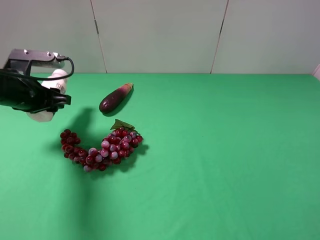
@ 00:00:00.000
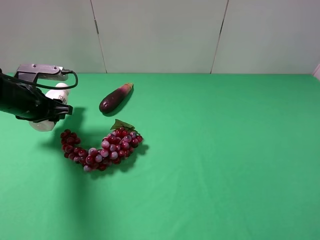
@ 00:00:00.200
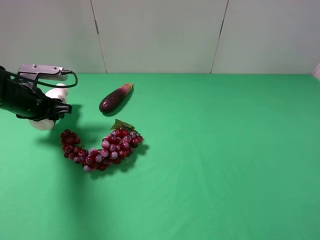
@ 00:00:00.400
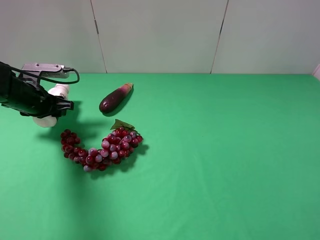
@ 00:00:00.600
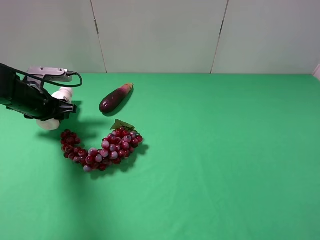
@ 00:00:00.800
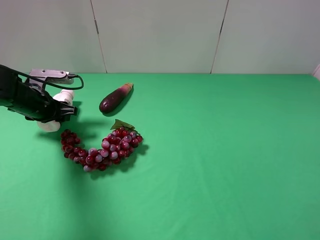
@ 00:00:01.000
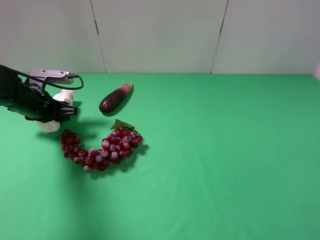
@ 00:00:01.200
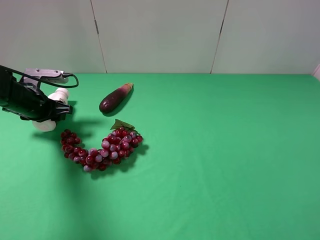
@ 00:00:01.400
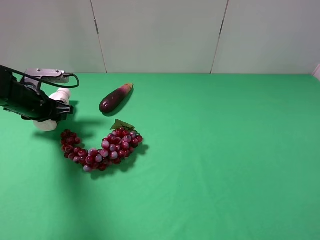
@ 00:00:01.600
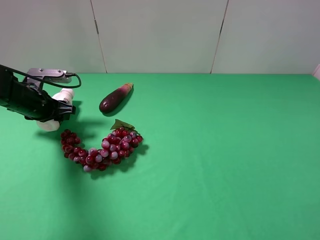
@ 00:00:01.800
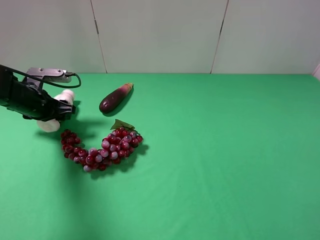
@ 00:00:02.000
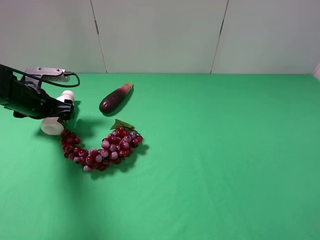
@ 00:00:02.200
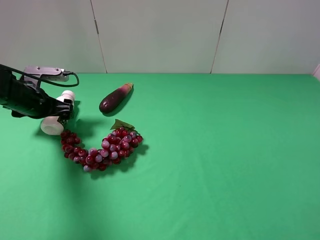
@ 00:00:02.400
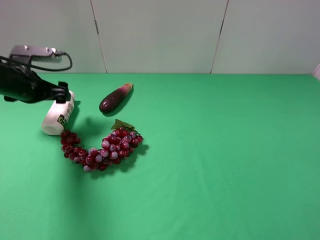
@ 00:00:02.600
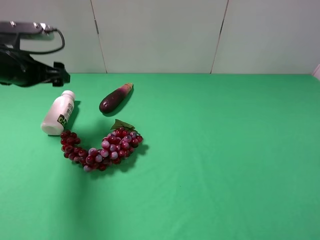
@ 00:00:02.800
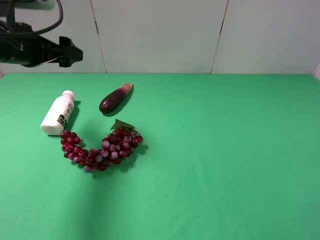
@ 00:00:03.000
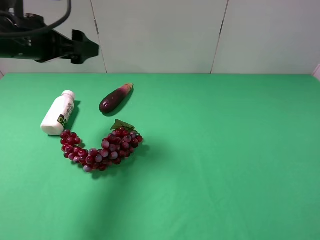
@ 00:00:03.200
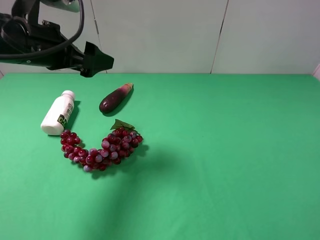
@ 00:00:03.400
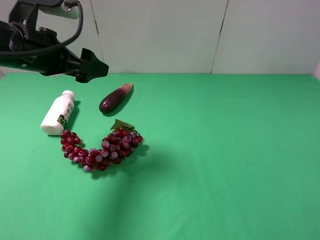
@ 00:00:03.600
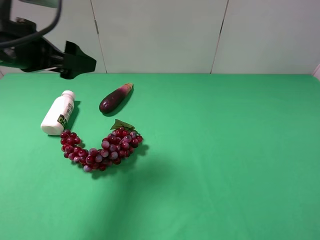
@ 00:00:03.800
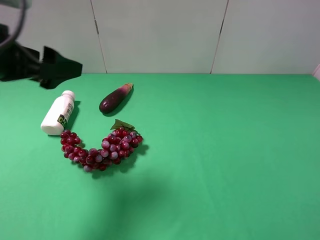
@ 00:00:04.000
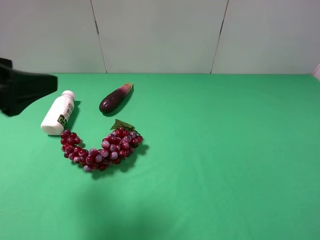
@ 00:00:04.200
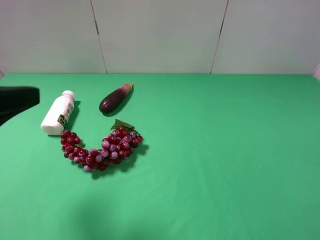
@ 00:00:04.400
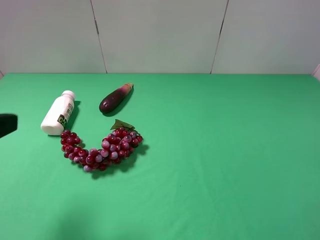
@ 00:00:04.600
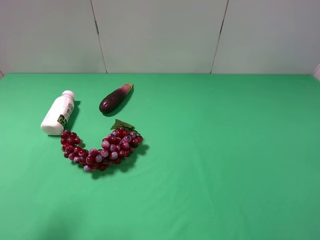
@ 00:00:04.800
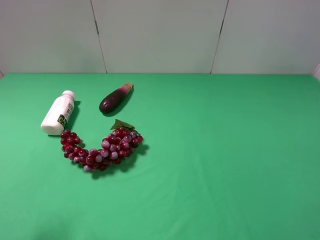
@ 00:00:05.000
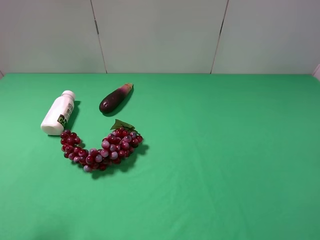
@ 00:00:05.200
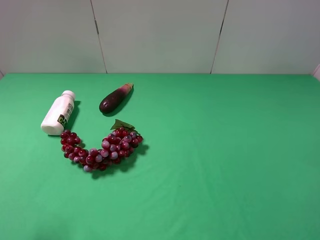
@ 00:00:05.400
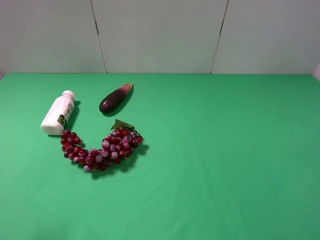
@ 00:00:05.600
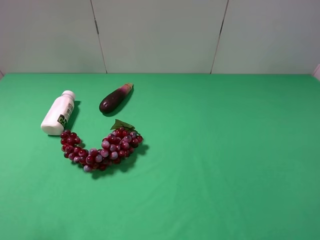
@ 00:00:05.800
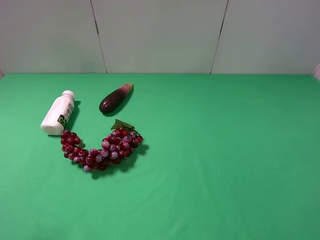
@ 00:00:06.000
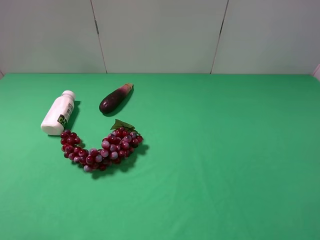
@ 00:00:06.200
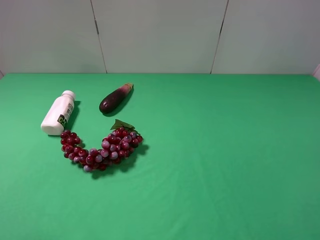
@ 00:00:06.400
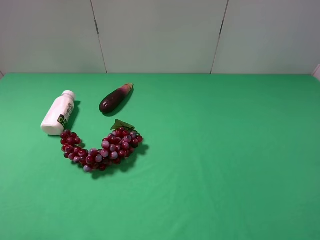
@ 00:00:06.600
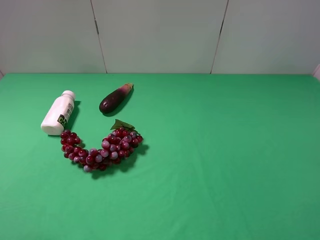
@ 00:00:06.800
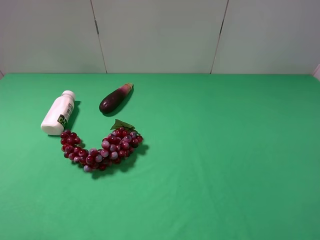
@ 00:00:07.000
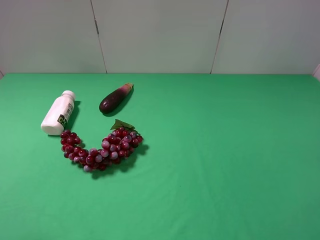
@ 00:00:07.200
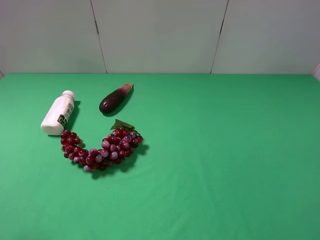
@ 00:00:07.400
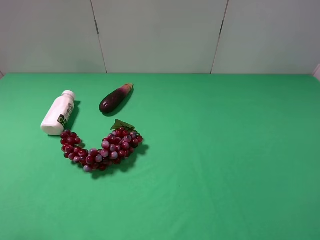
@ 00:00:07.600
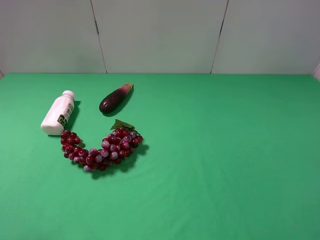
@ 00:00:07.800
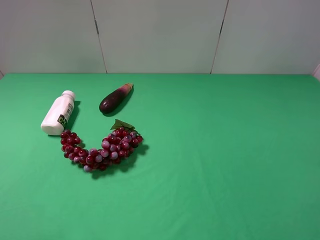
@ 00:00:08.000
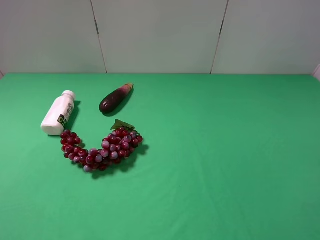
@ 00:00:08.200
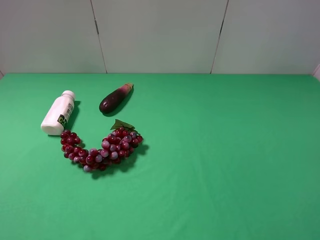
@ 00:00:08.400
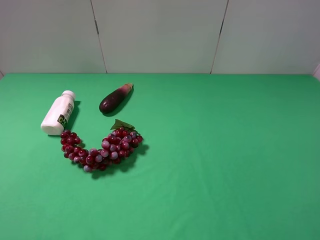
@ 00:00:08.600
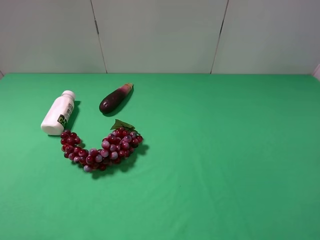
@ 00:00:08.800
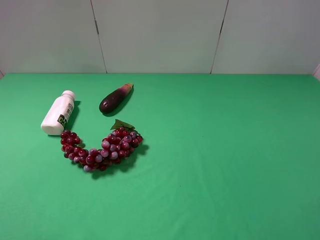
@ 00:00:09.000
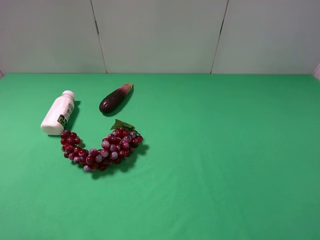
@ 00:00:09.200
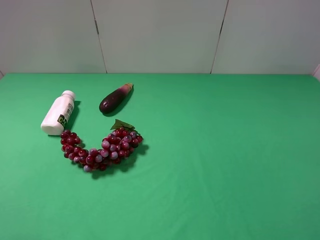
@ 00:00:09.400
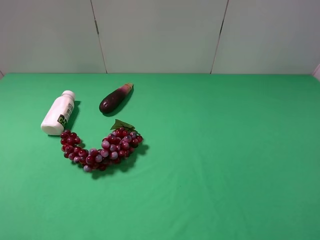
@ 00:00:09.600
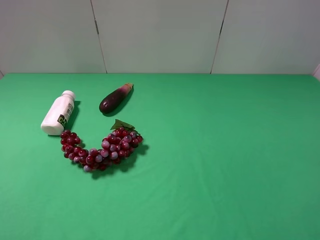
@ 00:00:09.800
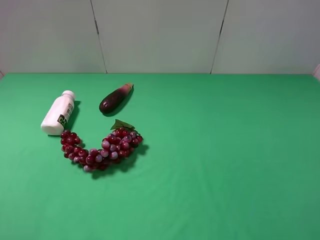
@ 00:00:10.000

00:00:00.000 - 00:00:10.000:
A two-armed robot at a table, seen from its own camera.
Task of the whole recording: use the right gripper to pick up the item and transfer it from the right gripper to the left gripper.
Step, 00:00:00.000 - 00:00:02.400: The left gripper places milk on the left side of the table.
00:00:00.000 - 00:00:01.400: The left gripper moves roughly 5 cm.
00:00:01.400 - 00:00:02.800: The left gripper moves upward, about 10 cm, and opens its fingers.
00:00:02.800 - 00:00:04.200: The left gripper heads backward and upward, covering roughly 20 cm.
00:00:04.200 - 00:00:05.800: The left gripper is displaced backward by approximately 10 cm.
